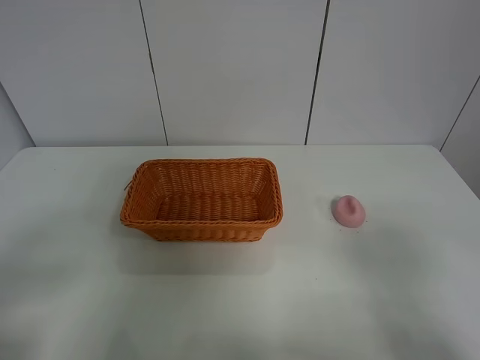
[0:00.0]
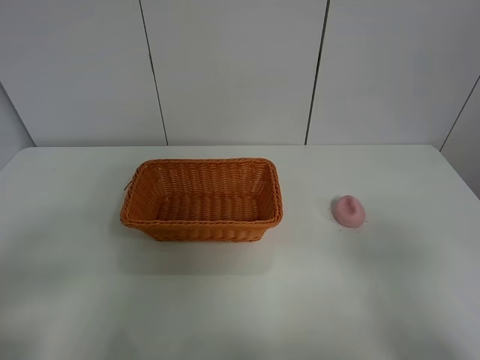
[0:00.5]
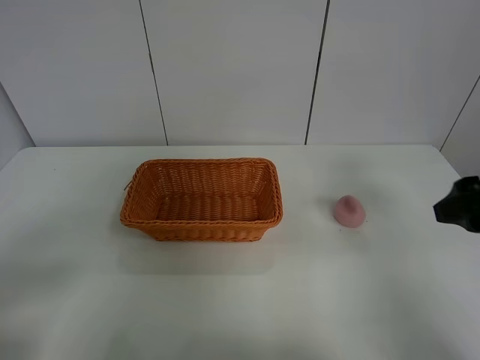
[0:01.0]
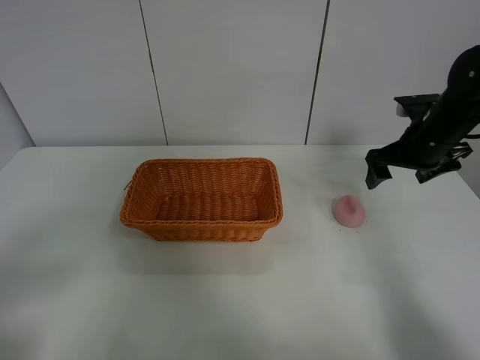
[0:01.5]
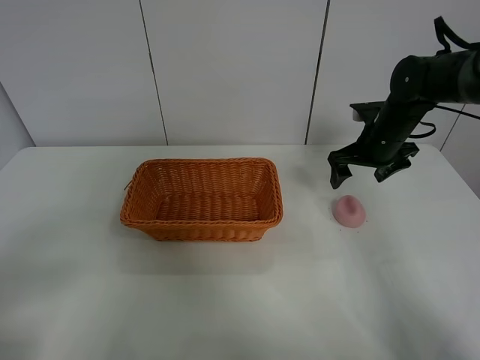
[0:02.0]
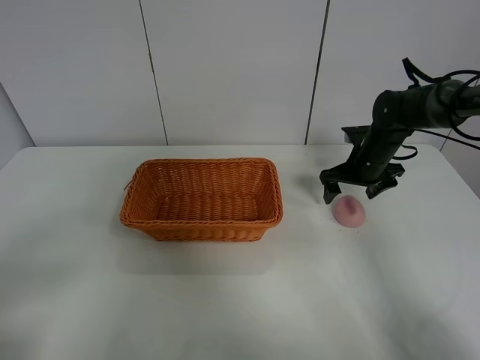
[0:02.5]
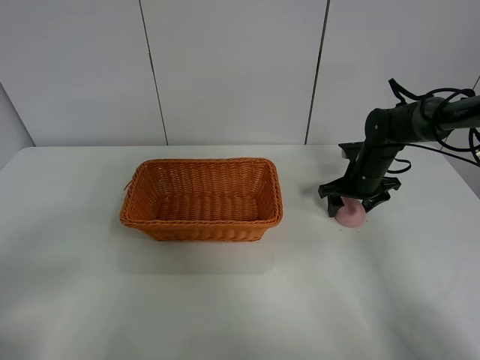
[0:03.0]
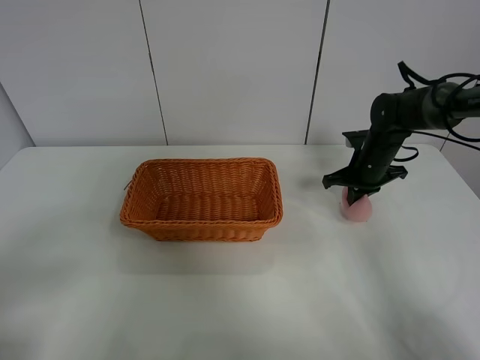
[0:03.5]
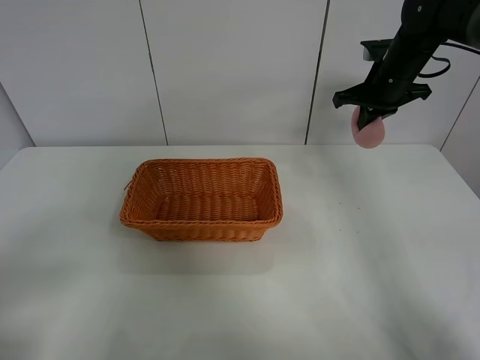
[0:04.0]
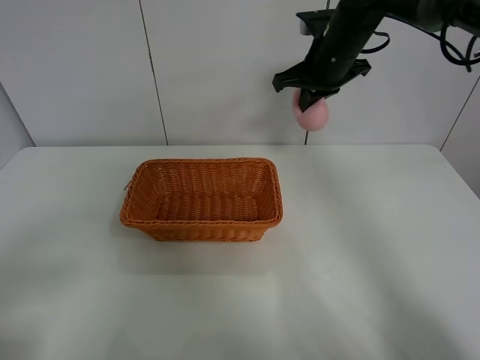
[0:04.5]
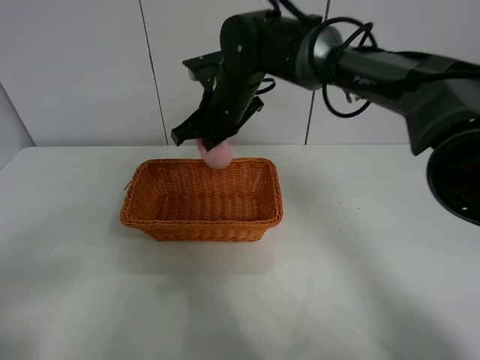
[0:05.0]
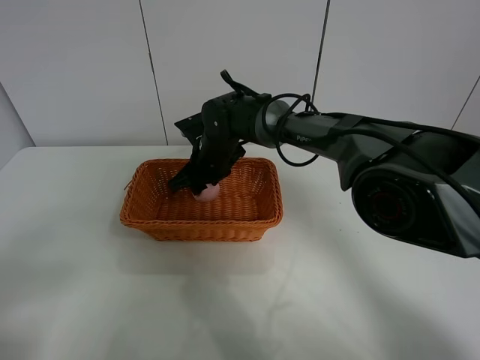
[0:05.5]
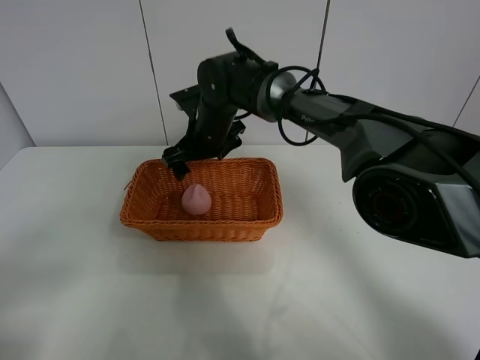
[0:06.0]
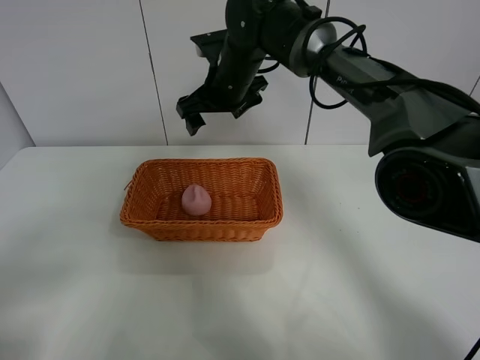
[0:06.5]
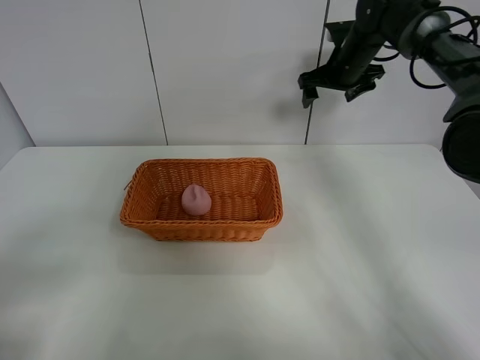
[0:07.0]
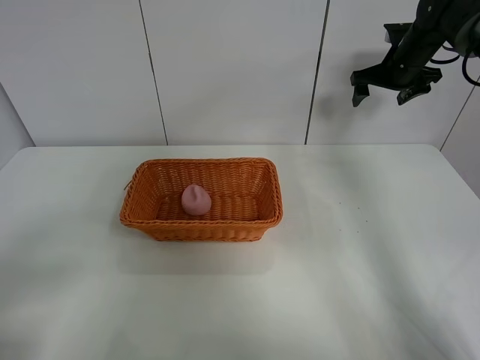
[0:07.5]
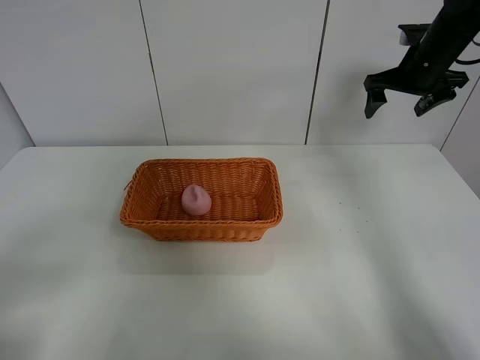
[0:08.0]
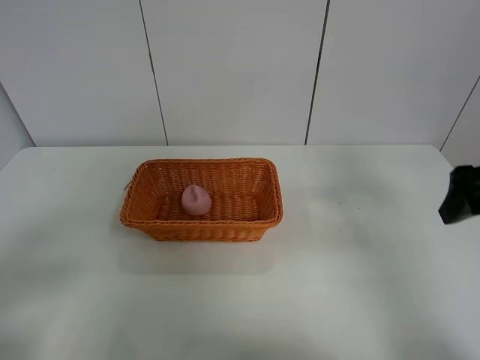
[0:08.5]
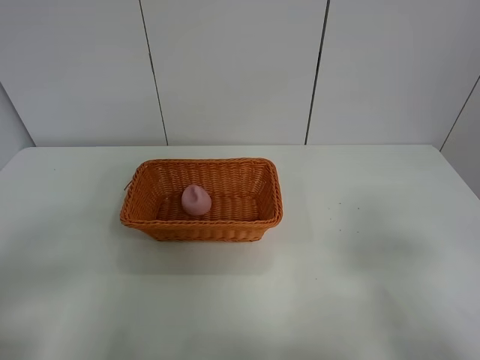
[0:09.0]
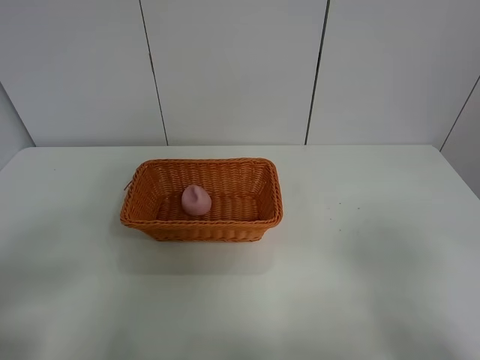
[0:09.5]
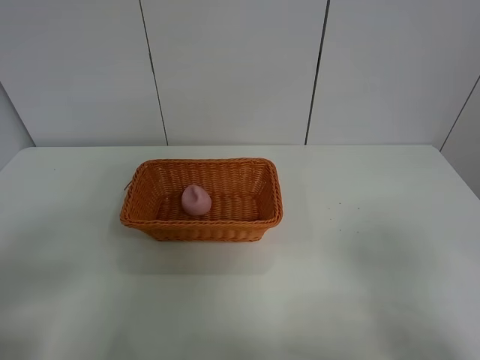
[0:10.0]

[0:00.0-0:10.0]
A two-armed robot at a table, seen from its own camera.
Step, 0:00.0 to 0:03.0: Grasp the peach with right gripper.
Step, 0:03.5 to 0:06.0: Place the peach in the basket with right gripper.
0:00.0 to 0:02.0: The right gripper is displaced forward by about 40 cm.
0:02.0 to 0:04.0: The right gripper heads upward, covering roughly 10 cm, and closes.
0:04.0 to 0:06.0: The right gripper shifts some 30 cm to the left, and opens its fingers.
0:06.0 to 0:08.0: The right gripper goes approximately 35 cm to the right.
0:08.0 to 0:10.0: The right gripper shifts roughly 40 cm backward.
